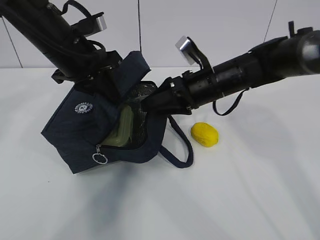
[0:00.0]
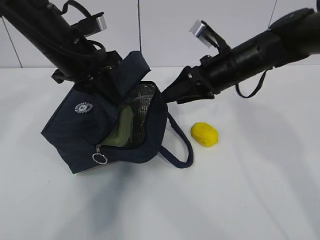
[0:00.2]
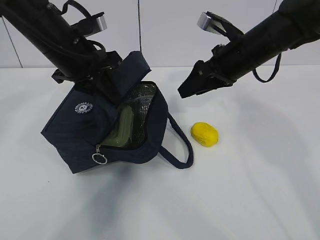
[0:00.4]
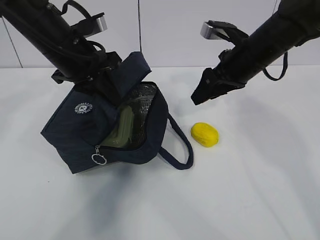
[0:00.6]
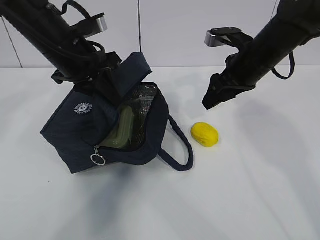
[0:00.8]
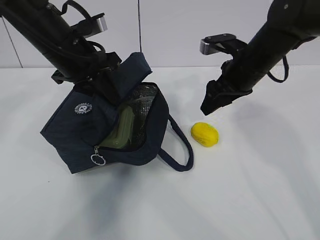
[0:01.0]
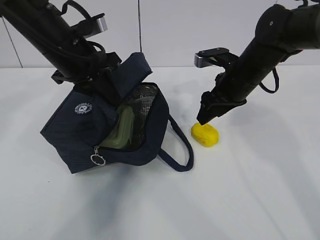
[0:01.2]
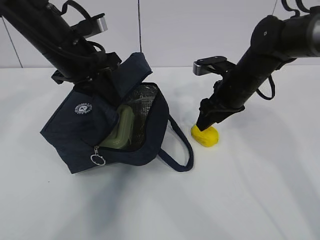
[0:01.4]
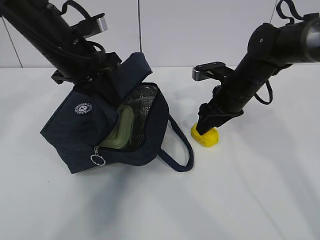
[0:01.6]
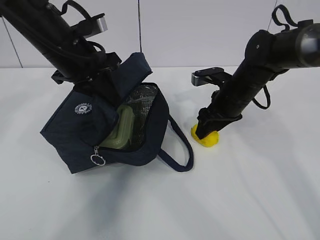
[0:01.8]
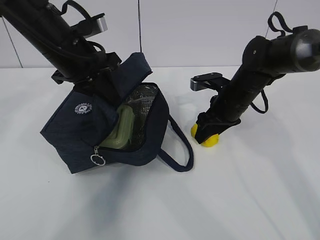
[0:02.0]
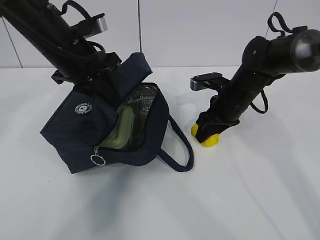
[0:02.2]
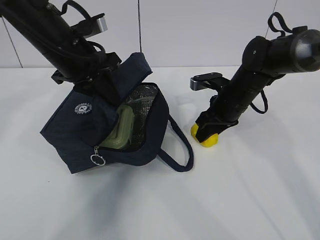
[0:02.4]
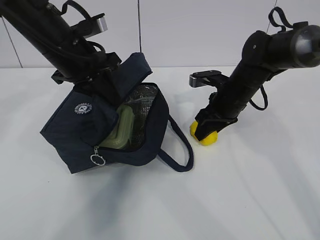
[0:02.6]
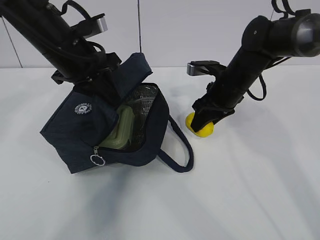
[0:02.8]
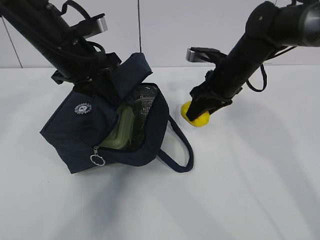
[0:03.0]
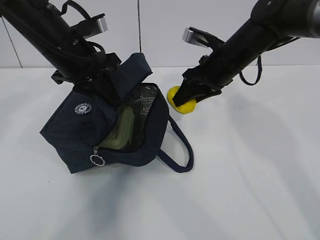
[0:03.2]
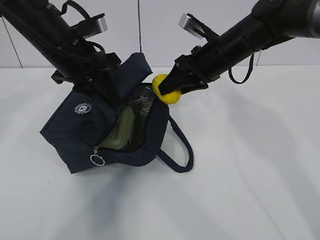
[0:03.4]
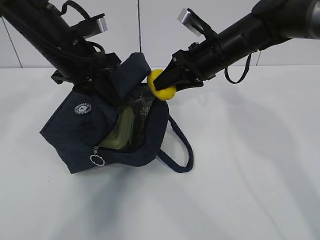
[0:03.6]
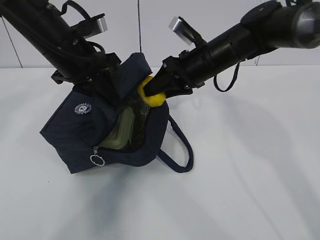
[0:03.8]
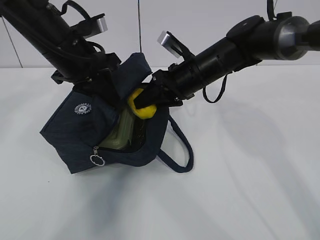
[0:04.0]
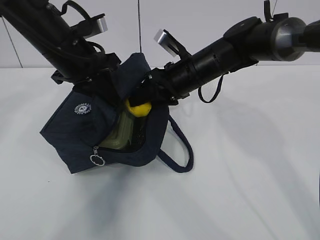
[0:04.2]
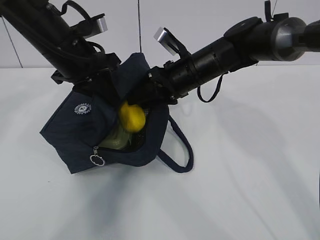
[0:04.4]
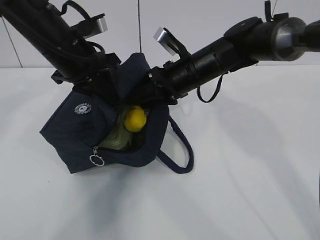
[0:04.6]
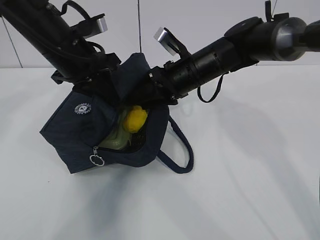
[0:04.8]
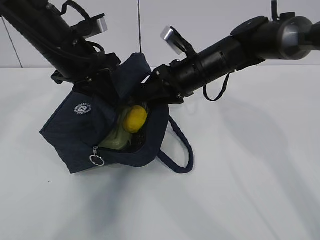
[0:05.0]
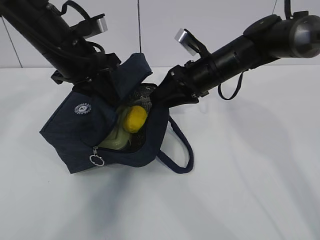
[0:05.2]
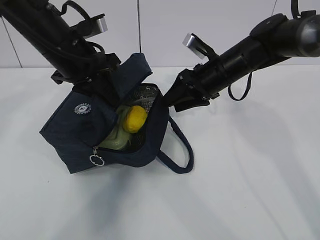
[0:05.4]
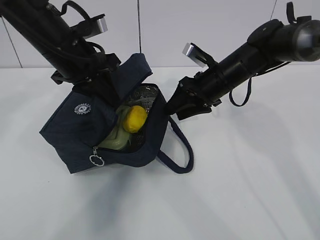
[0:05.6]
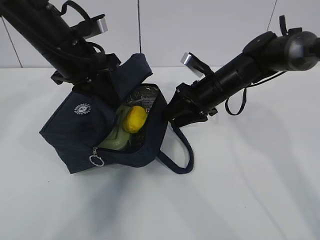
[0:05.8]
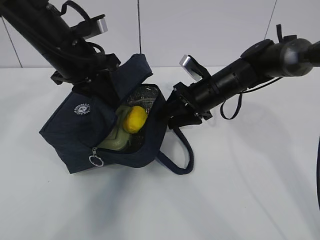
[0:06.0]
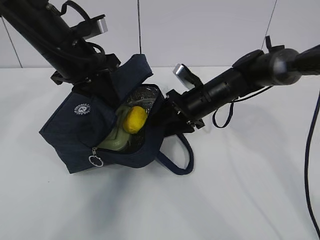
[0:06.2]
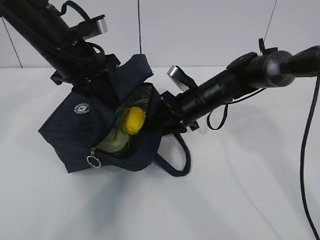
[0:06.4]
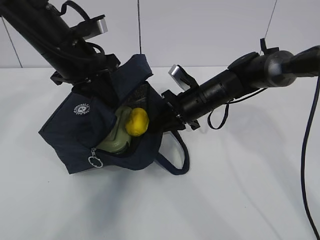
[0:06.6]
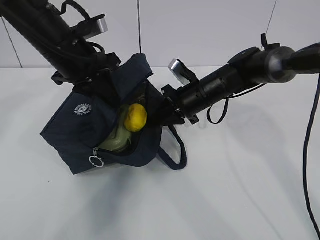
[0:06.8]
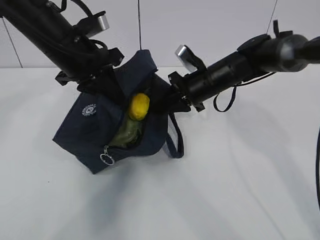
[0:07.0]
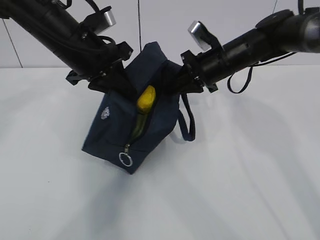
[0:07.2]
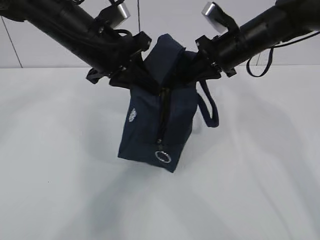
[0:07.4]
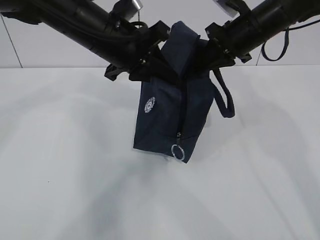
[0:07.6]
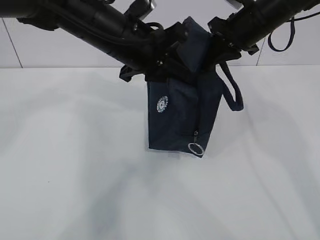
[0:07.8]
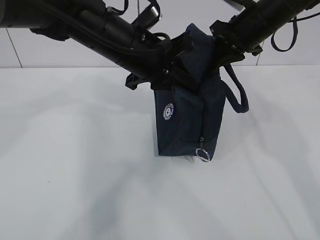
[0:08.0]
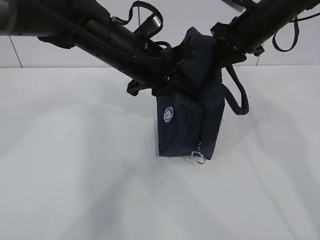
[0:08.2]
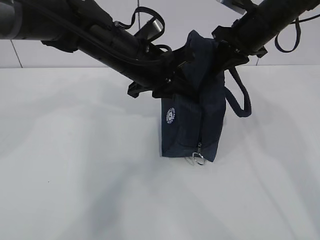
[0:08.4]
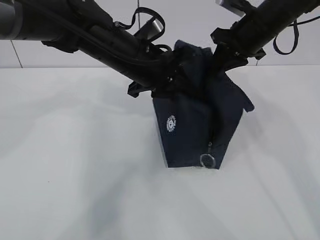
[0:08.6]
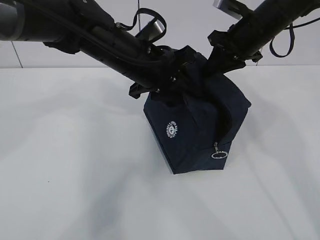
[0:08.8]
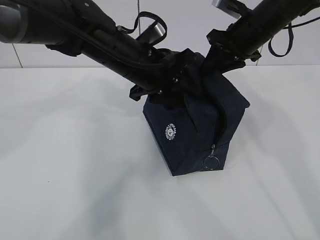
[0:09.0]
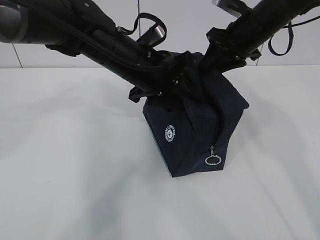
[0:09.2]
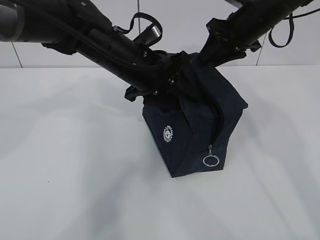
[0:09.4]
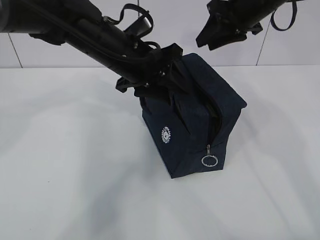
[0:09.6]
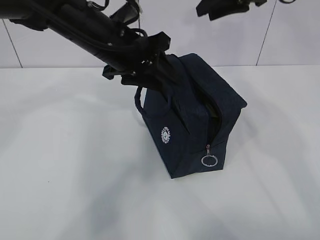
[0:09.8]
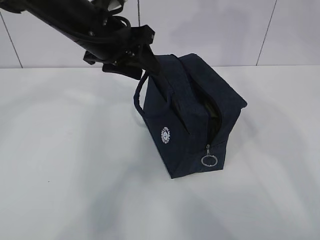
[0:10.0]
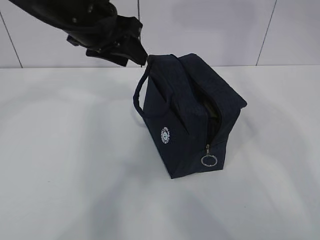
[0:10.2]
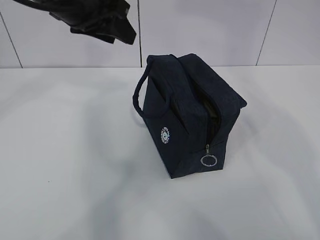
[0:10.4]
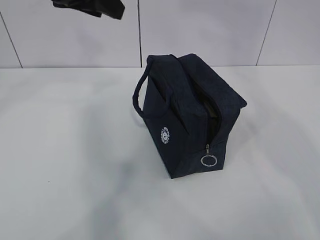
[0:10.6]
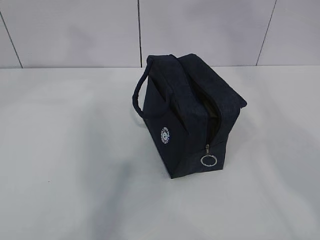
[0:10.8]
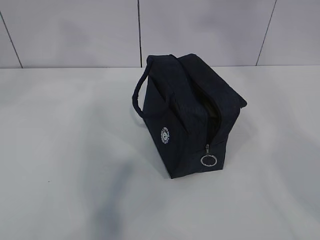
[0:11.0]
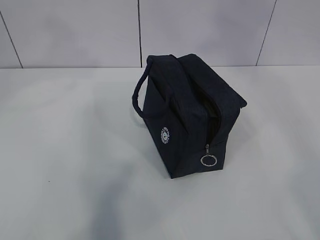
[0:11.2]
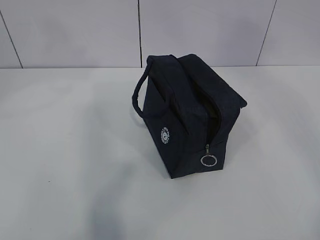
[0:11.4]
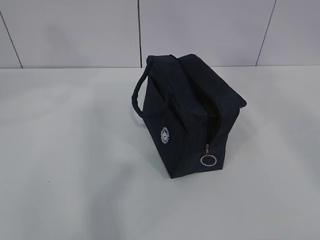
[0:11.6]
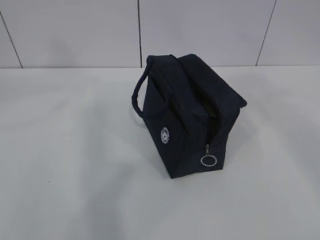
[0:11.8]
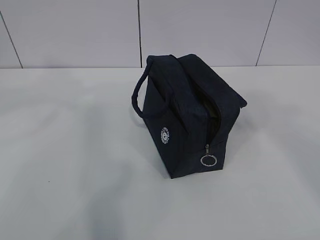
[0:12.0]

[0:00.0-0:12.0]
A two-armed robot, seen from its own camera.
Step, 0:00.0 to 0:01.2: Grab the lunch bag with your right hand.
Step, 0:01.6 to 0:03.8: Stand the lunch bag upright with your right hand.
0:00.0 to 0:01.6: The right gripper is displaced to the right by about 5 cm, and goes upward and returns, approximately 5 cm each way.
0:01.6 to 0:03.0: There are only small adjustments of the grippers.
0:03.0 to 0:04.4: The right gripper shifts some 5 cm to the left.
0:04.4 to 0:06.0: The right gripper heads downward and to the right, covering approximately 10 cm.
0:06.0 to 0:07.6: The right gripper shifts about 10 cm upward, and closes, while the left gripper shifts approximately 5 cm to the right.
0:07.6 to 0:09.0: The left gripper changes place by approximately 5 cm, and opens its fingers, while the right gripper opens up.
0:09.0 to 0:10.4: The right gripper heads upward, covering approximately 30 cm. Meanwhile the left gripper moves upward and to the left, roughly 15 cm.
0:10.4 to 0:12.0: The left gripper travels backward and upward by approximately 20 cm, while the right gripper heads backward, covering roughly 30 cm.

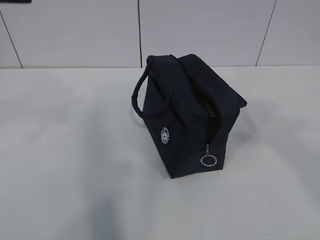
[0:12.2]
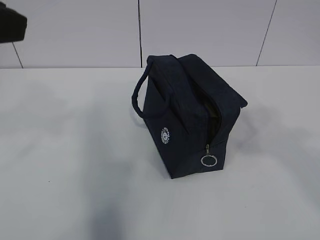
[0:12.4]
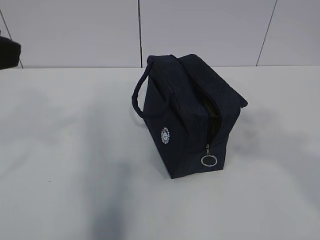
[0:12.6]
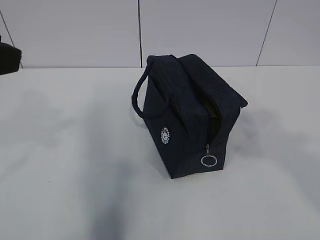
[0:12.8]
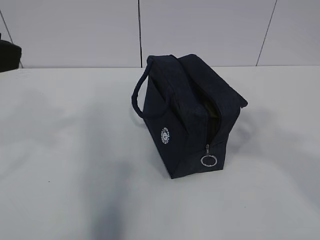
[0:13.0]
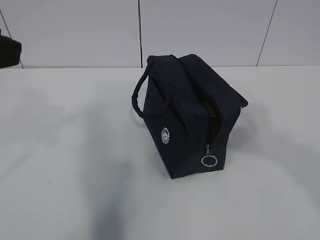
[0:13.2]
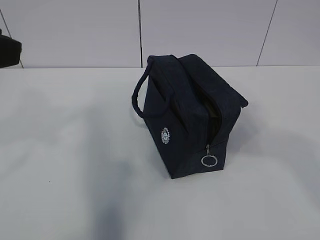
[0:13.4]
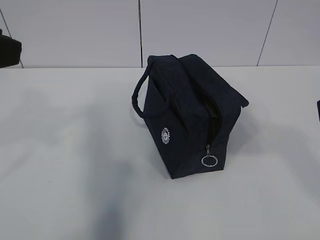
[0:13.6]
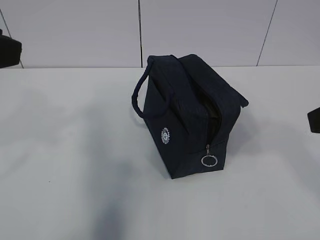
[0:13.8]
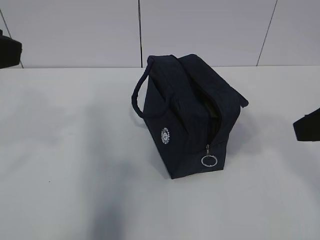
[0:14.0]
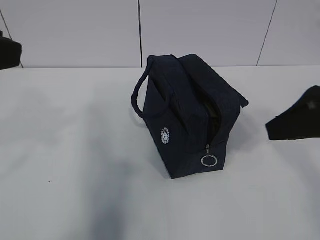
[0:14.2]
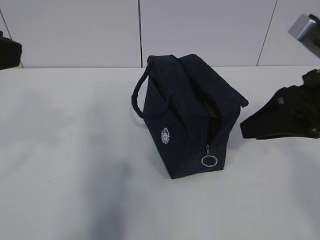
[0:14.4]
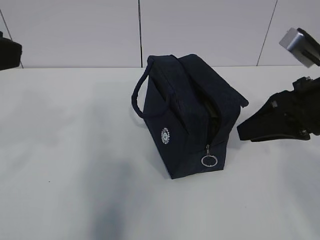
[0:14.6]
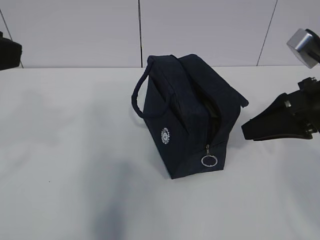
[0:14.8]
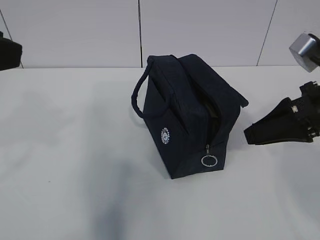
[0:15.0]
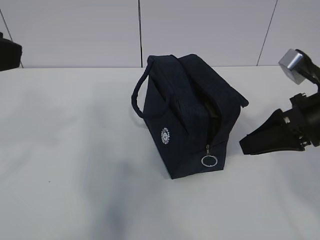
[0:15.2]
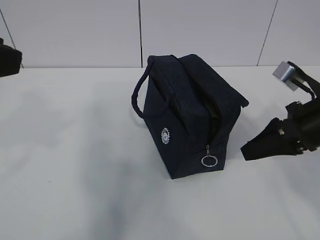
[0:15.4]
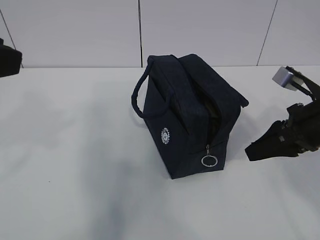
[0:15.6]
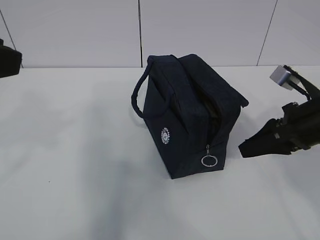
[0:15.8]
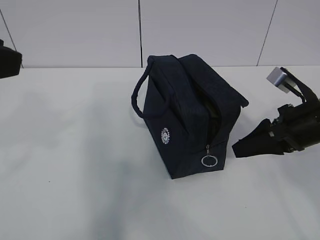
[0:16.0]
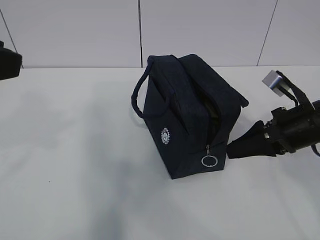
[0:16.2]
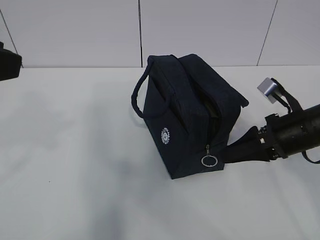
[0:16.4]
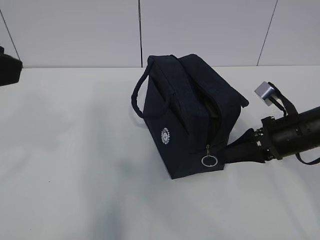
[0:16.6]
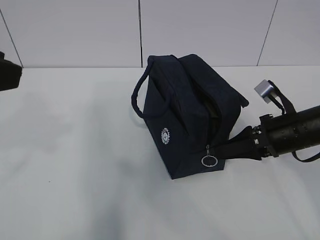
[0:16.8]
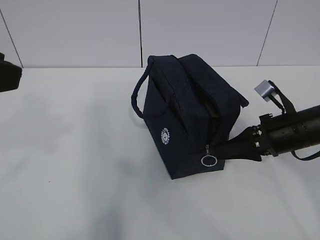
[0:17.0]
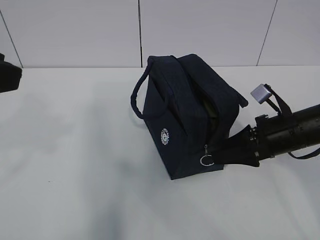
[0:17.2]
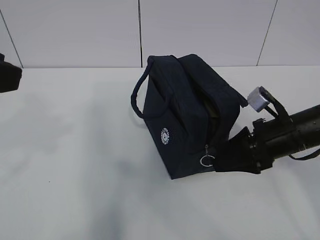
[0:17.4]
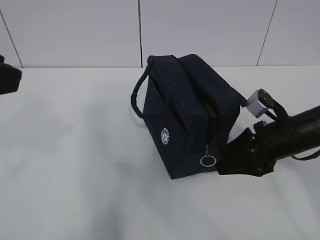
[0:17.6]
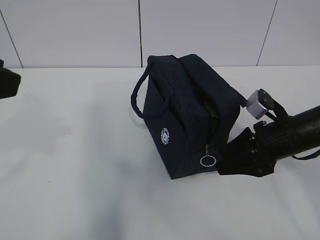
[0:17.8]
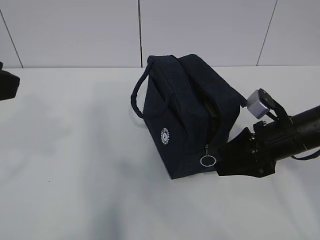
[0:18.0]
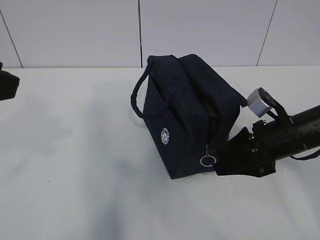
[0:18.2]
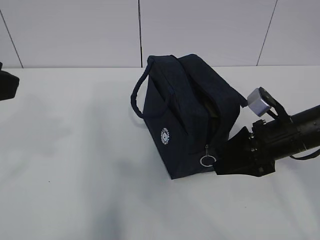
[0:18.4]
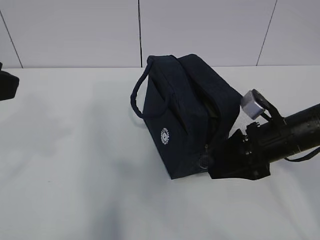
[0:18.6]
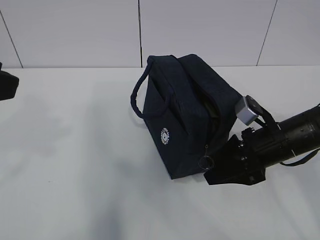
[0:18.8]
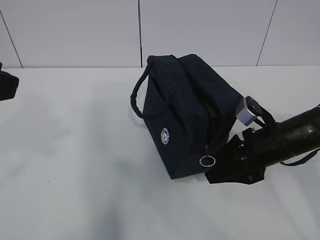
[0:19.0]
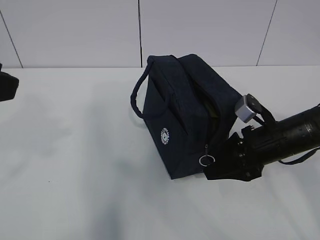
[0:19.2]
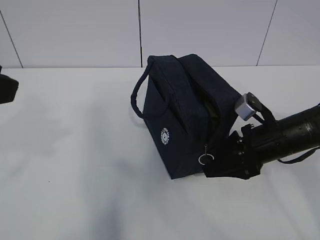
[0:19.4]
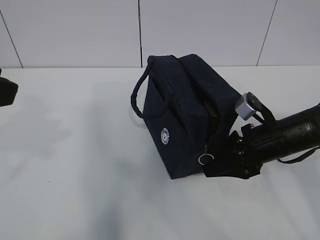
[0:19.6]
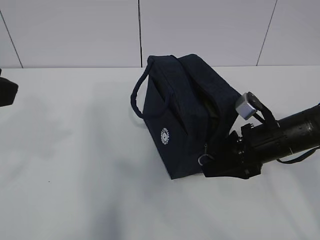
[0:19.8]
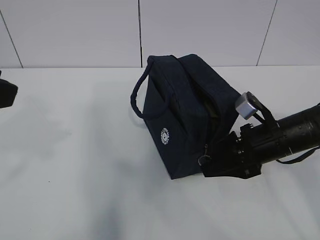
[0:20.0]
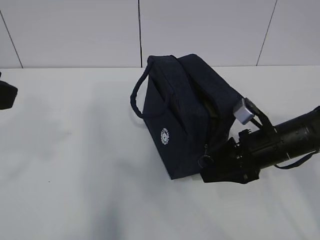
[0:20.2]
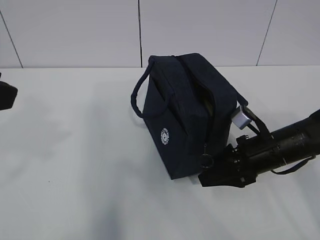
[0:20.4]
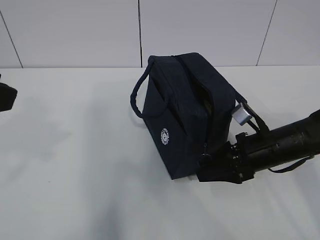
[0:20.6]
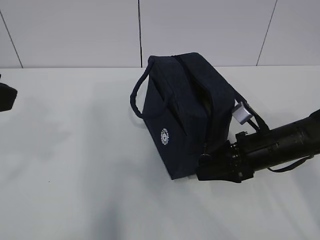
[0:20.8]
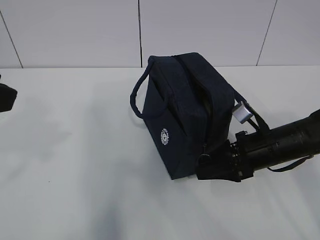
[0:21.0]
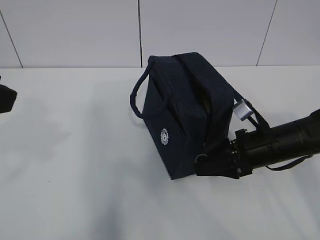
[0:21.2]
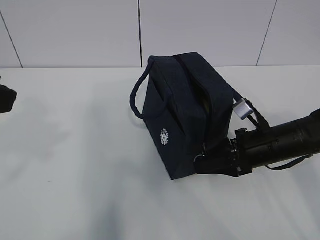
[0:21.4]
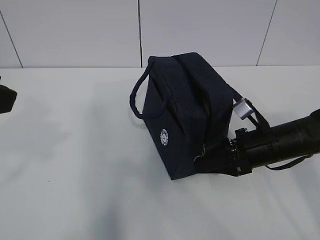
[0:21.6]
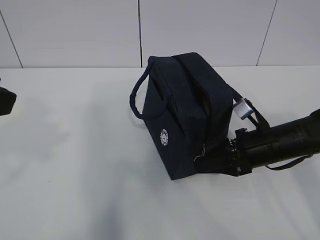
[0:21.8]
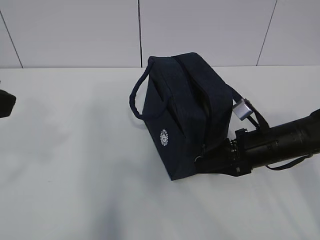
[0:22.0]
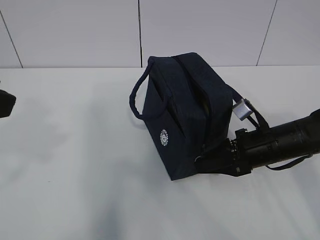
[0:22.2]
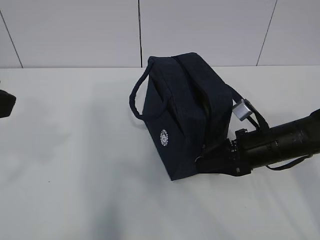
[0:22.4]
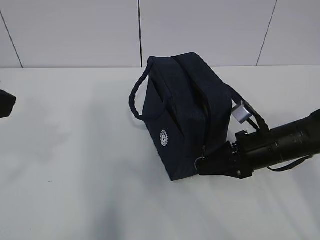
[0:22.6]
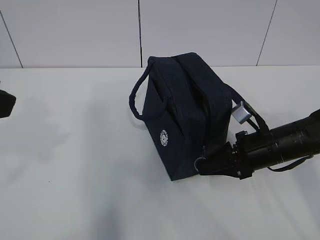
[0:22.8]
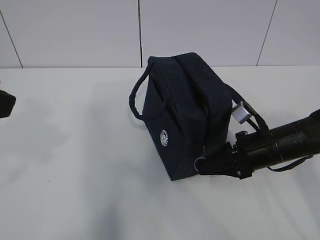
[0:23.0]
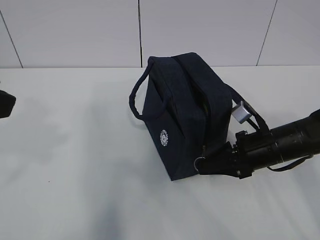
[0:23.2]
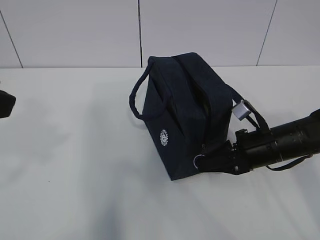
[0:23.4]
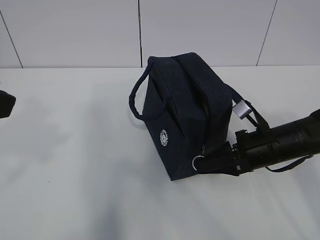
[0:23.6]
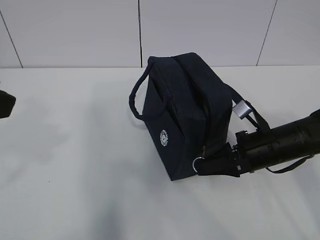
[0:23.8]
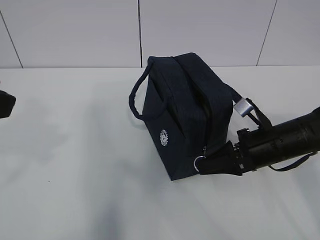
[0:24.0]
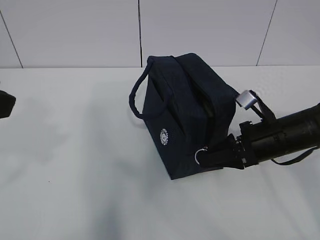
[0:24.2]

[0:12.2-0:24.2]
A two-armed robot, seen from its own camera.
0:12.2 to 0:13.8: The left gripper changes place by some 5 cm. The right gripper moves downward and forward, some 15 cm.
0:13.8 to 0:15.2: The right gripper goes some 15 cm forward and downward.
0:15.2 to 0:16.6: The right gripper is displaced downward by approximately 10 cm, and opens its fingers.
0:18.2 to 0:21.2: There are only small adjustments of the grippers.
0:21.2 to 0:22.6: The right gripper closes.
0:22.6 to 0:24.2: The grippers stay close to where they were, moving slightly.
